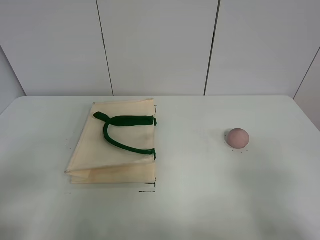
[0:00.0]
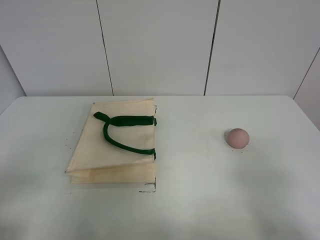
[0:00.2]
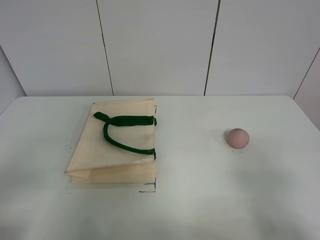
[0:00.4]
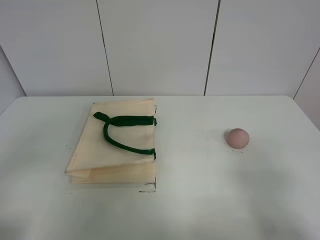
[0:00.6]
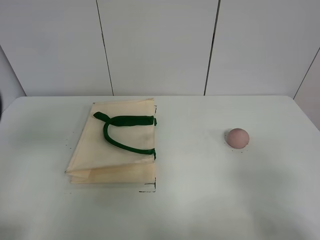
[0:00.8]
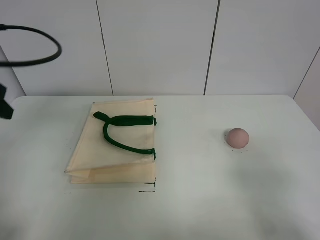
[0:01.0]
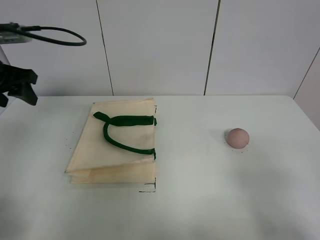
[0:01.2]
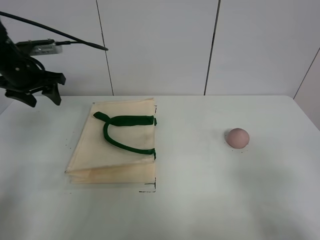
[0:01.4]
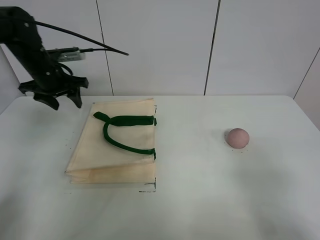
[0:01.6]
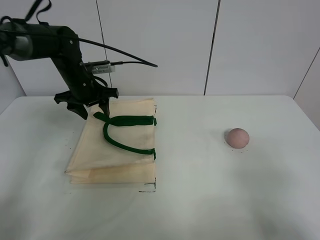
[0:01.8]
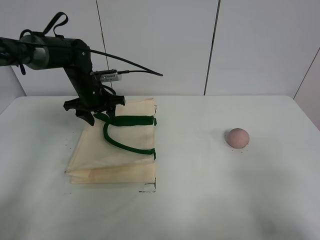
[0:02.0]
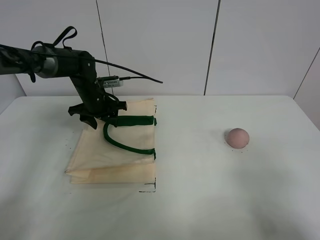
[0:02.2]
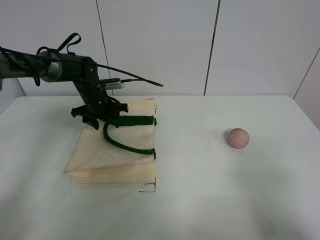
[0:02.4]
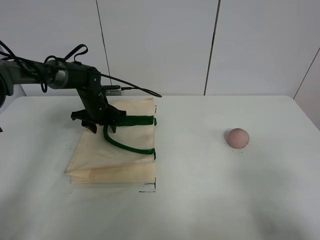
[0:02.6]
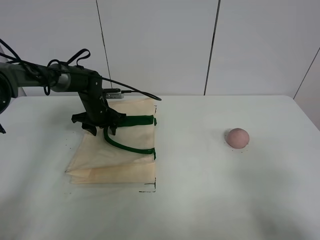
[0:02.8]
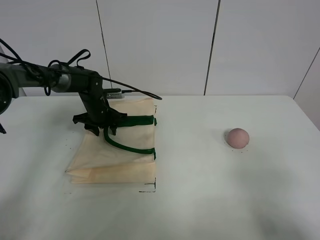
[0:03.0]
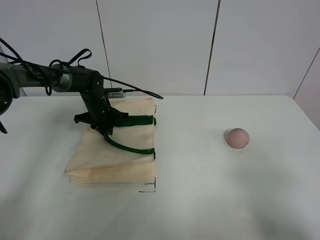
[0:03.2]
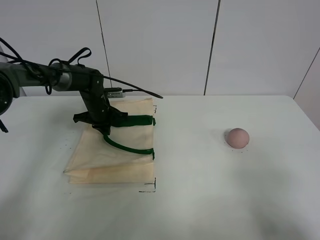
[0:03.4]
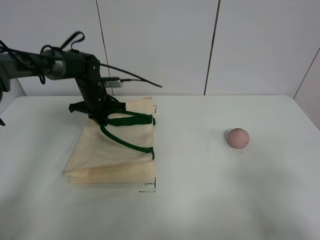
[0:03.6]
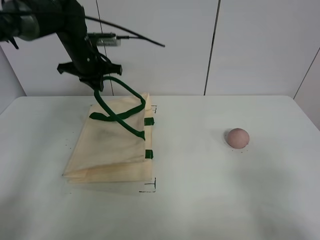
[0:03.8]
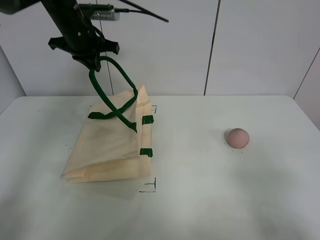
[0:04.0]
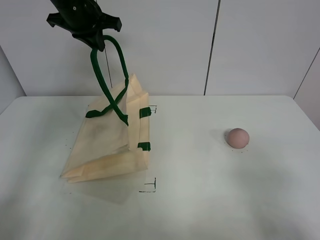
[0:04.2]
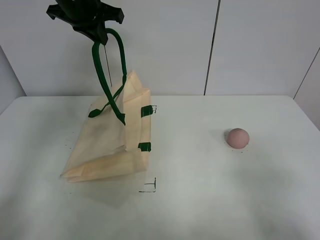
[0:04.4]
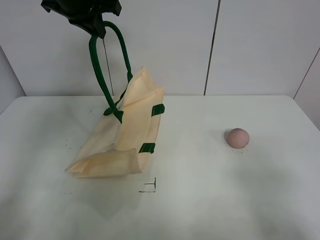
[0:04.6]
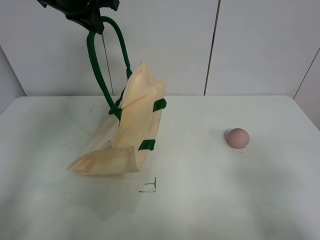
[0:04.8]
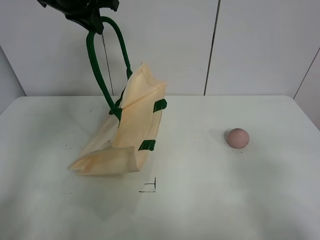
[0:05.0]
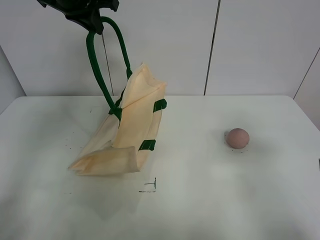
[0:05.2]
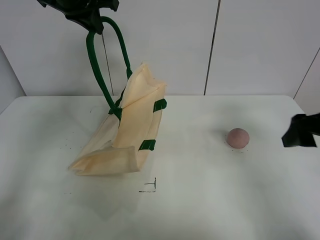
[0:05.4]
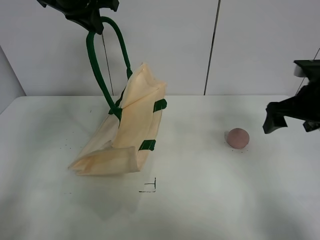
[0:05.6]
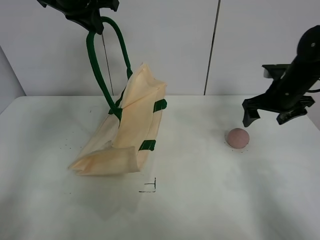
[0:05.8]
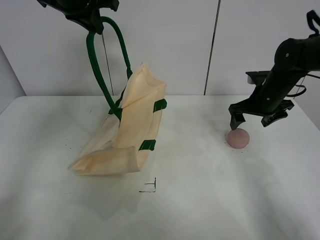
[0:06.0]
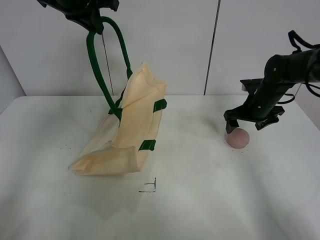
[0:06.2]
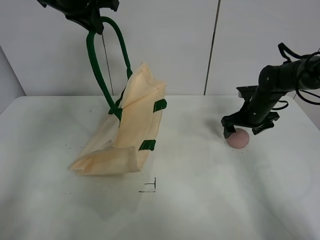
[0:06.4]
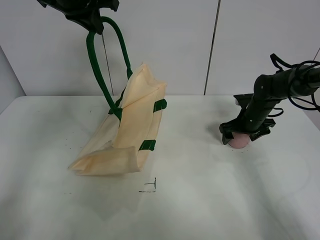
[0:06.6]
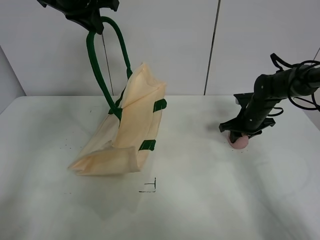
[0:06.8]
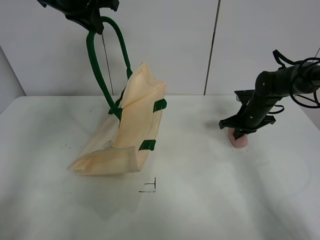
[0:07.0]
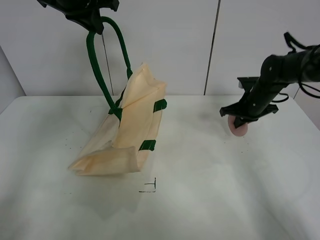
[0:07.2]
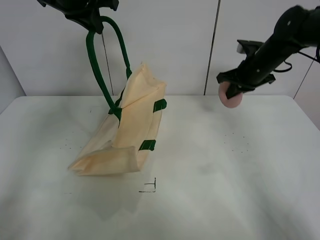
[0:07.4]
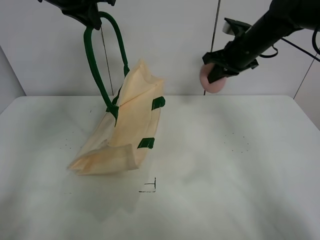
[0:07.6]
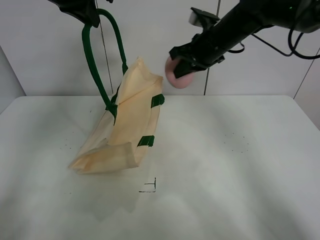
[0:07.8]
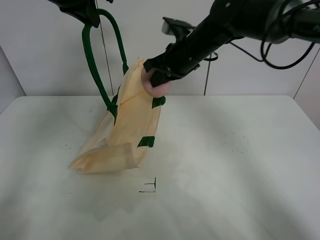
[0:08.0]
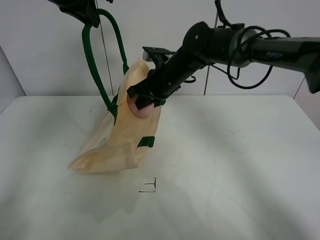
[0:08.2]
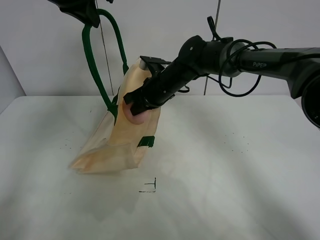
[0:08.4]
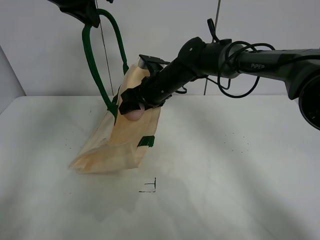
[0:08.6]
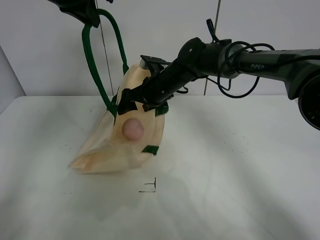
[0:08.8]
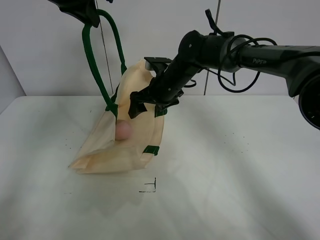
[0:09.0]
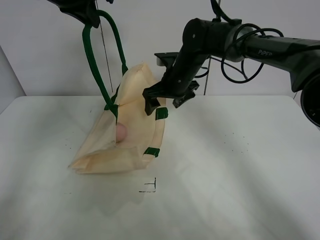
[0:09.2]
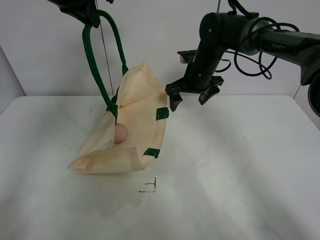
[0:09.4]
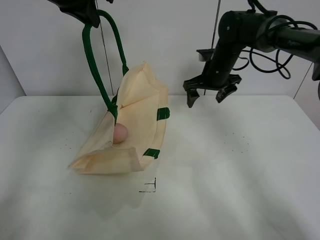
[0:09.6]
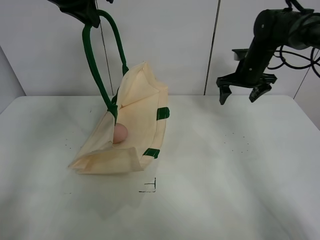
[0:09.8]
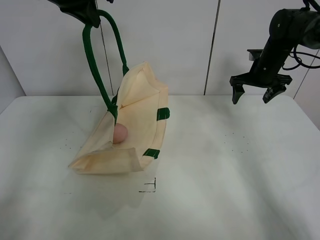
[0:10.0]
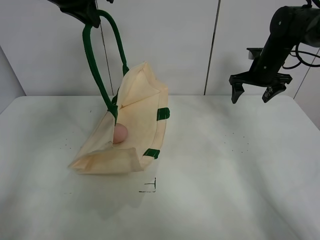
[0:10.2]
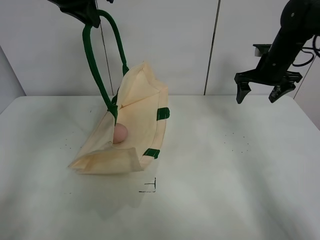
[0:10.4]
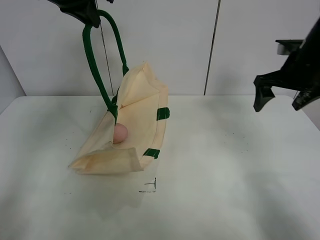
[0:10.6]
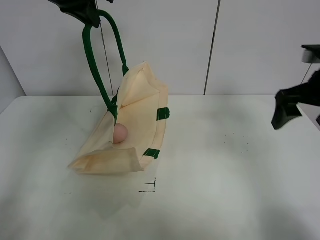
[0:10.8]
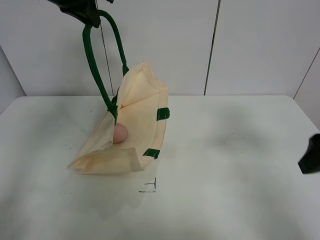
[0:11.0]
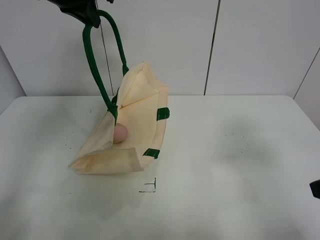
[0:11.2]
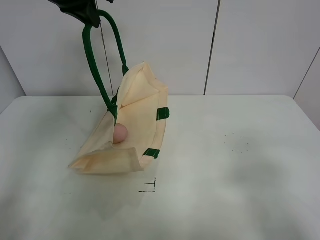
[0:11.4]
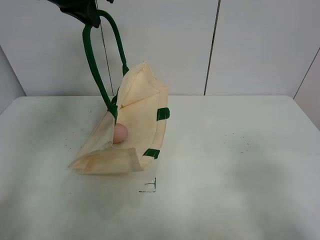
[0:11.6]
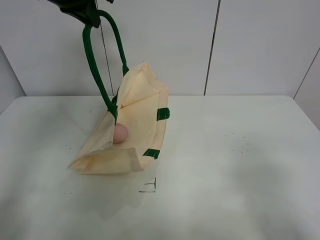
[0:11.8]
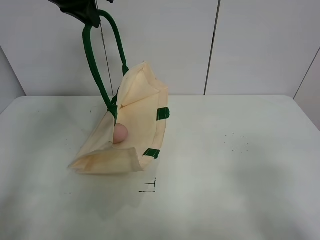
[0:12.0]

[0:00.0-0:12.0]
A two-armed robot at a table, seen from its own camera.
Task of the whole recording: open the white linen bag and put the peach in the bag.
Step, 0:00.0 to 0:04.4: Lift the handbag with left gripper.
Step, 0:04.6 to 0:07.0: Grasp the peach with right gripper.
Step, 0:07.2 to 0:09.0: Place the peach in the handbag with right gripper.
0:00.0 to 0:01.6: The left gripper is displaced forward by about 40 cm.
0:01.6 to 0:03.0: The left gripper travels downward and to the right by approximately 15 cm.
0:03.0 to 0:04.4: The left gripper shifts some 30 cm upward, and closes its fingers.
0:04.4 to 0:06.0: The right gripper travels forward by some 40 cm.
0:06.0 to 0:07.6: The right gripper heads upward and to the left, covering some 10 cm, and closes its fingers.
0:07.6 to 0:09.0: The right gripper is displaced to the left and downward by roughly 20 cm, and opens up.
0:09.0 to 0:10.4: The right gripper travels to the right by roughly 25 cm.
0:10.4 to 0:12.0: The right gripper moves backward, about 40 cm.

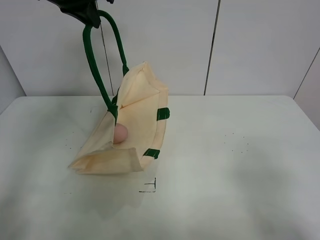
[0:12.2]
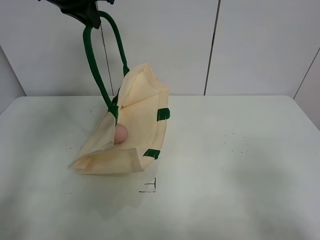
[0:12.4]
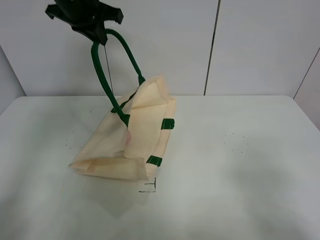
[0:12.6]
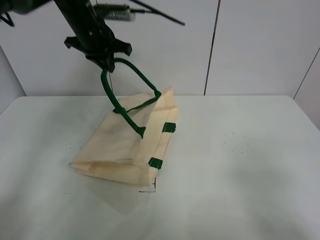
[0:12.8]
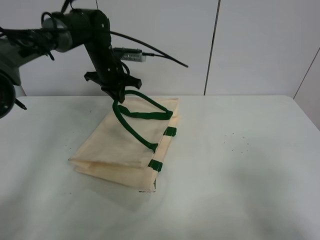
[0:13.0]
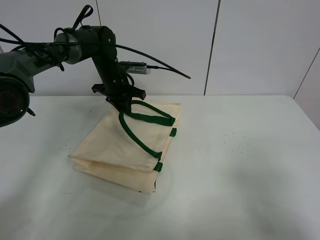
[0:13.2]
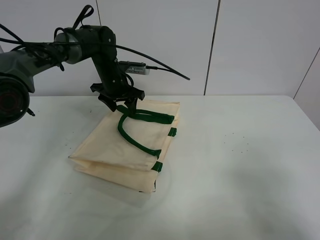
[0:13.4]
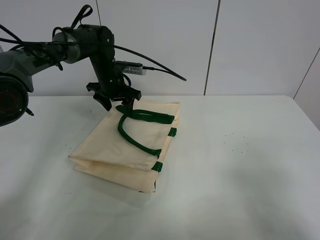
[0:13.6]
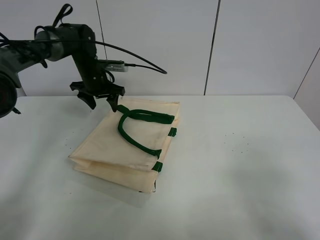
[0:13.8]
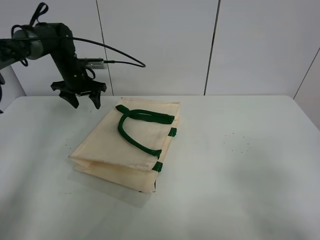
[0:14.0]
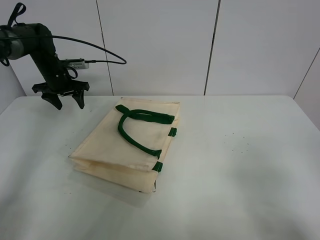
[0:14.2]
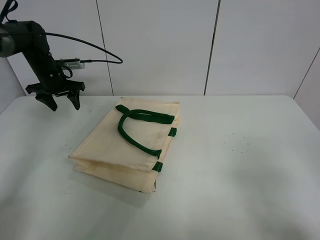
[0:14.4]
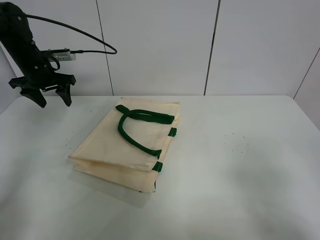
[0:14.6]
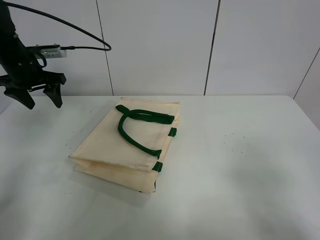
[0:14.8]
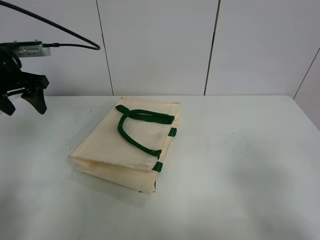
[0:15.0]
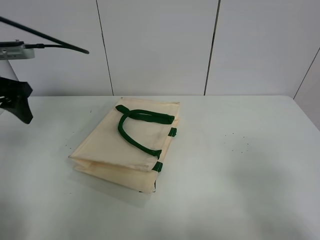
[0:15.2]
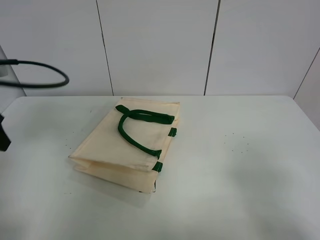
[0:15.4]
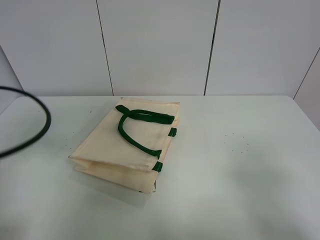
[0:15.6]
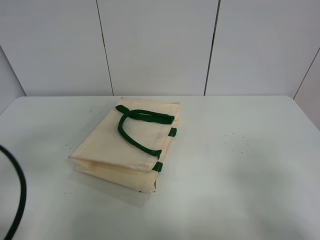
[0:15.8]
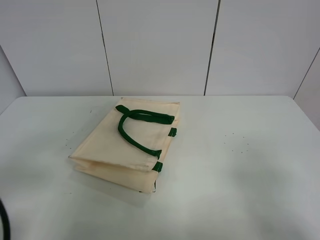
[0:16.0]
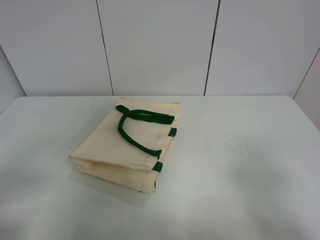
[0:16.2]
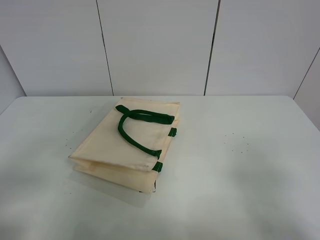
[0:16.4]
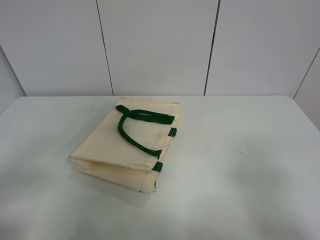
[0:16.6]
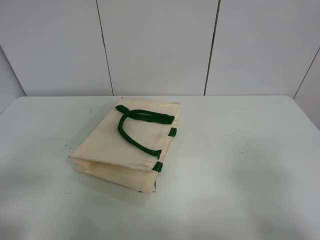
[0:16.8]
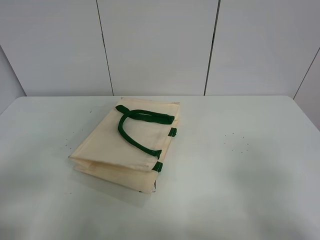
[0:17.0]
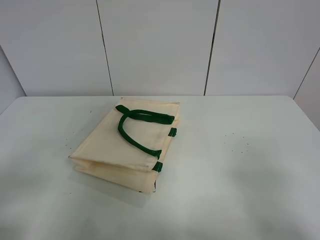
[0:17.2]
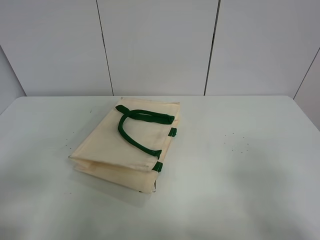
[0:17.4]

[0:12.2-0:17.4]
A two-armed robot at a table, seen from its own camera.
Task of the whole recording: open the white linen bag and put the peach in the bag.
0:12.2 to 0:14.0: The left gripper travels downward and forward by approximately 25 cm, and opens up.
0:14.0 to 0:15.6: The left gripper travels backward by approximately 35 cm.
0:15.6 to 0:17.4: The left gripper travels backward by some 15 cm.
